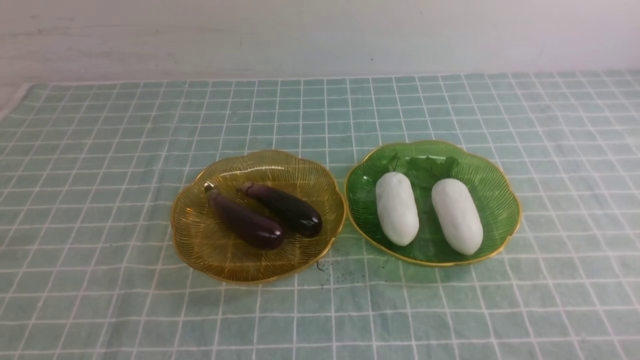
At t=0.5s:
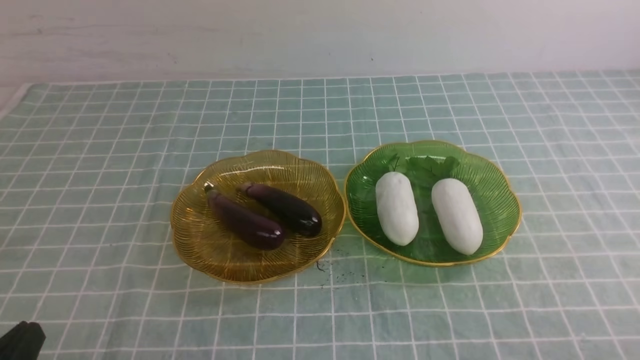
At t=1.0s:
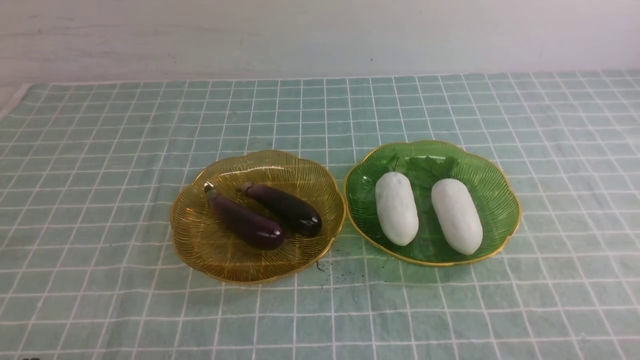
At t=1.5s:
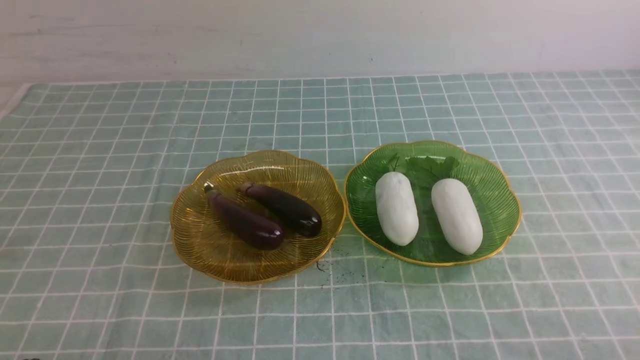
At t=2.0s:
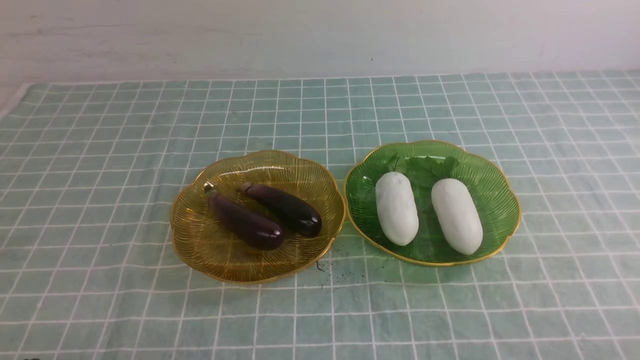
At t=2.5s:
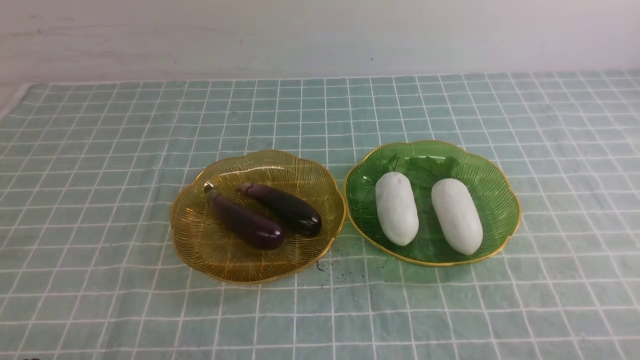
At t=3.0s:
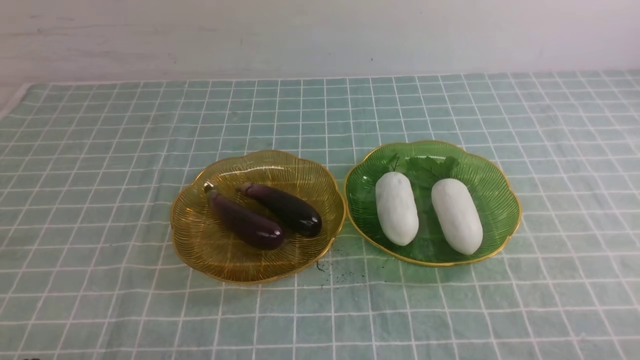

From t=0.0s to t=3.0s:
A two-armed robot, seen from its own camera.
From t=1.5s to t=3.0s: Both grippers stay about where they are.
